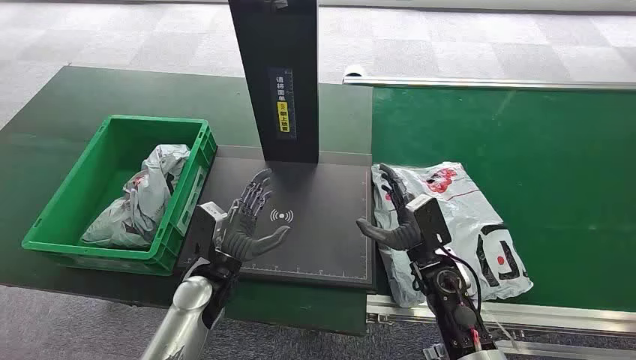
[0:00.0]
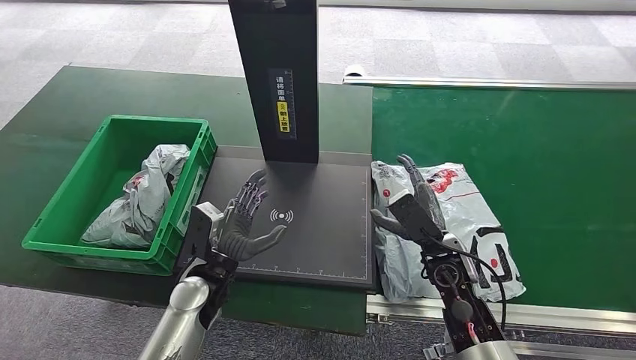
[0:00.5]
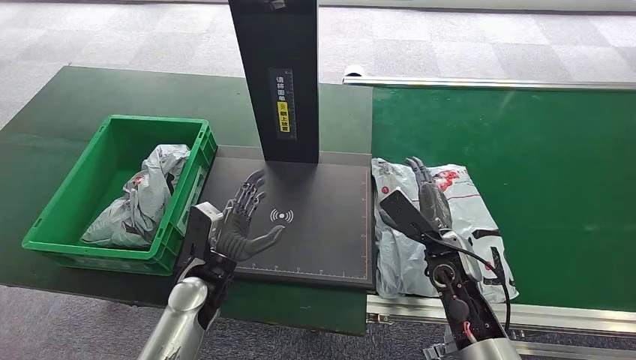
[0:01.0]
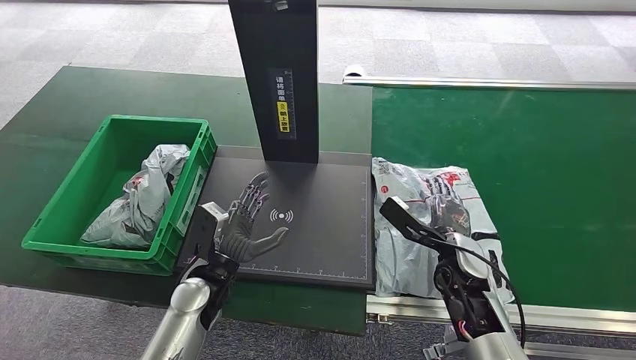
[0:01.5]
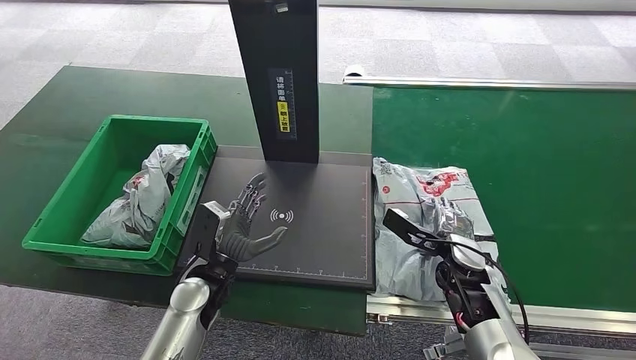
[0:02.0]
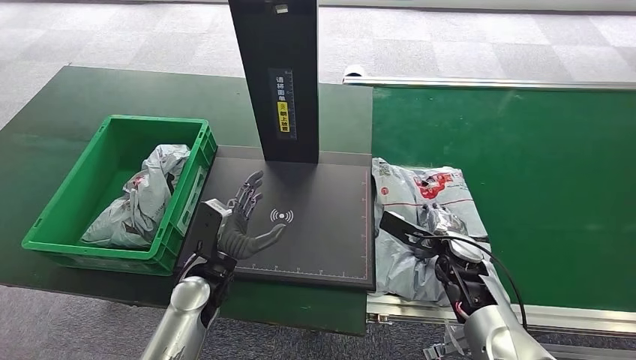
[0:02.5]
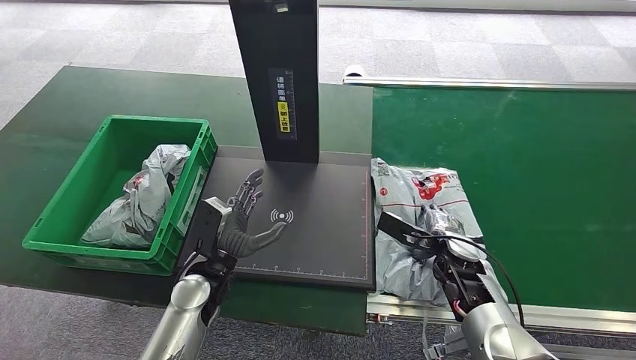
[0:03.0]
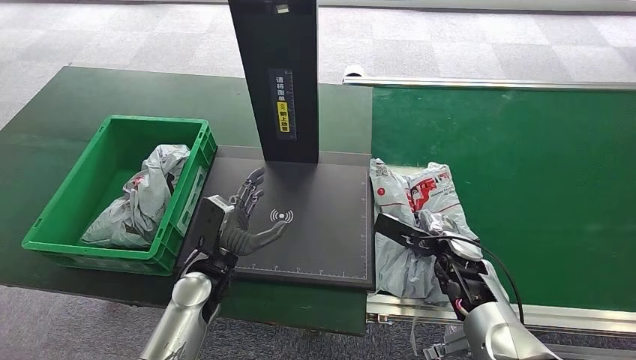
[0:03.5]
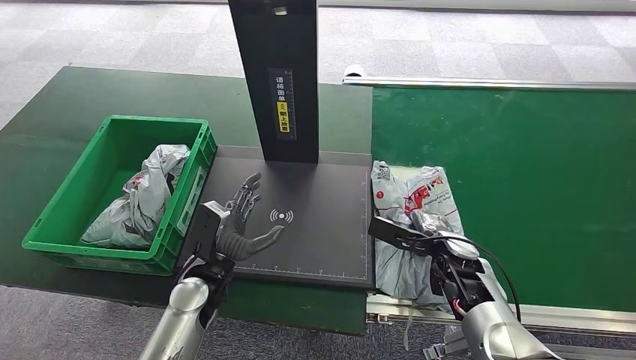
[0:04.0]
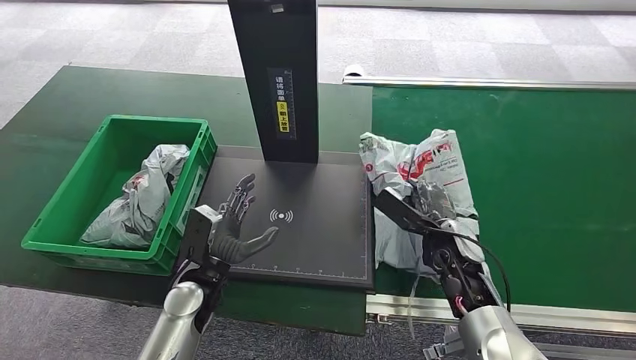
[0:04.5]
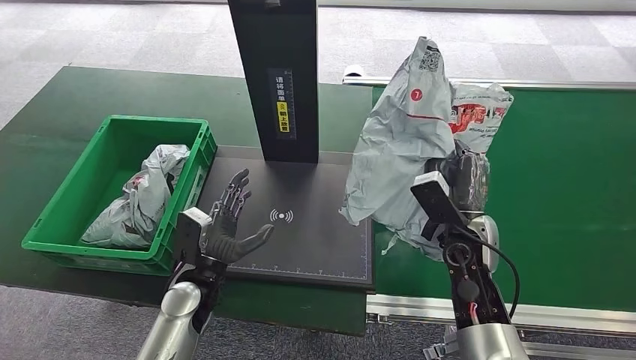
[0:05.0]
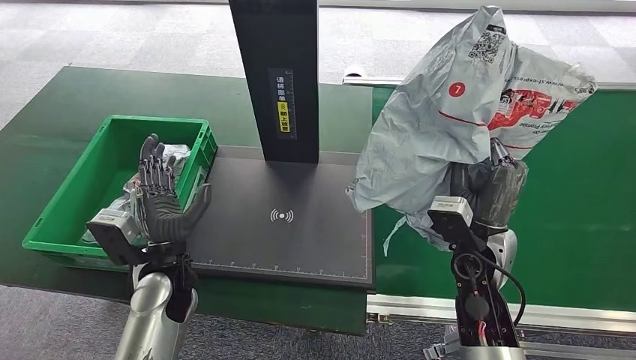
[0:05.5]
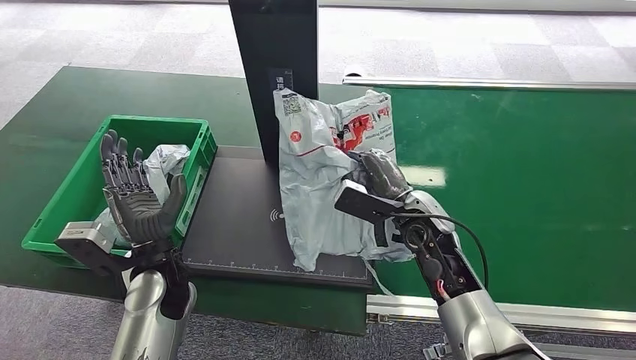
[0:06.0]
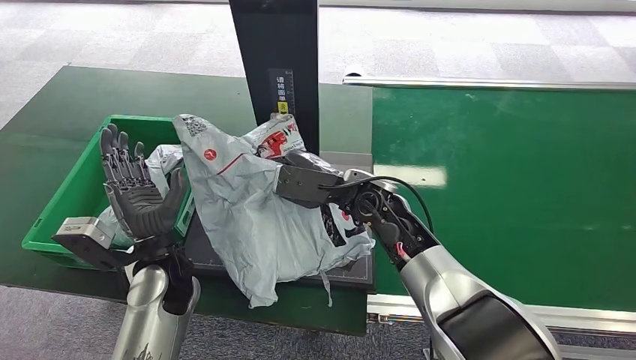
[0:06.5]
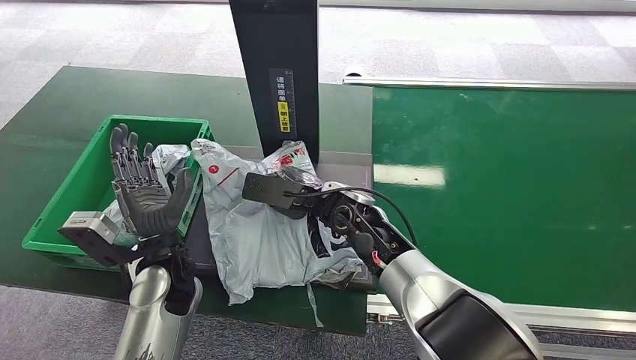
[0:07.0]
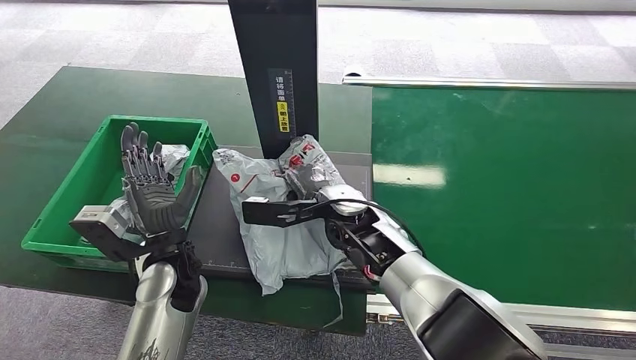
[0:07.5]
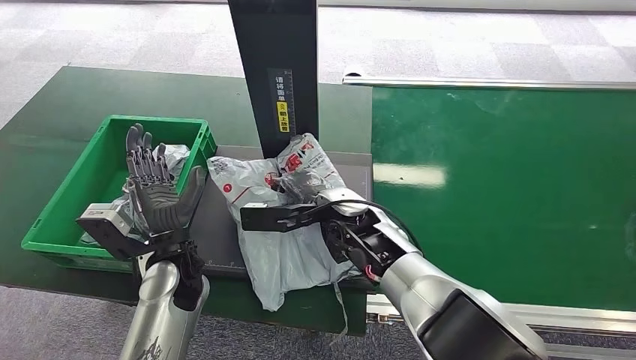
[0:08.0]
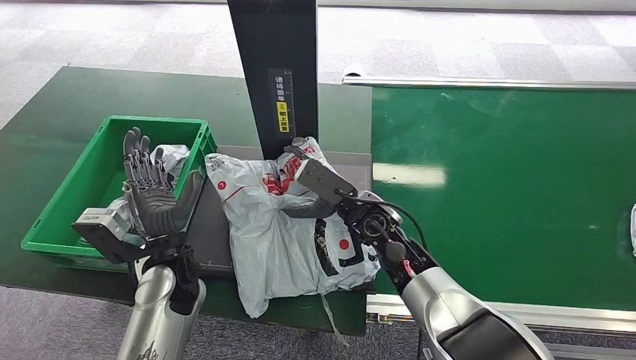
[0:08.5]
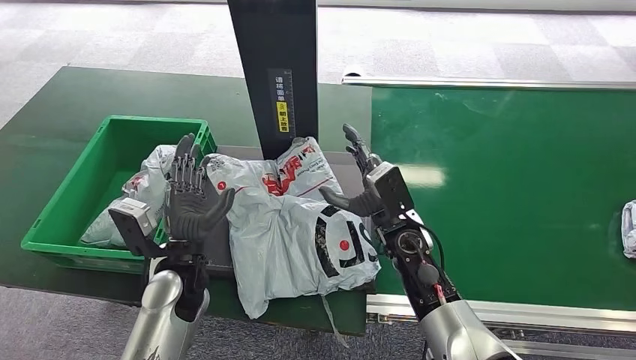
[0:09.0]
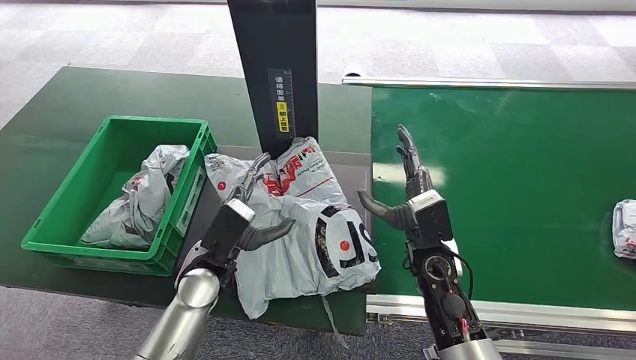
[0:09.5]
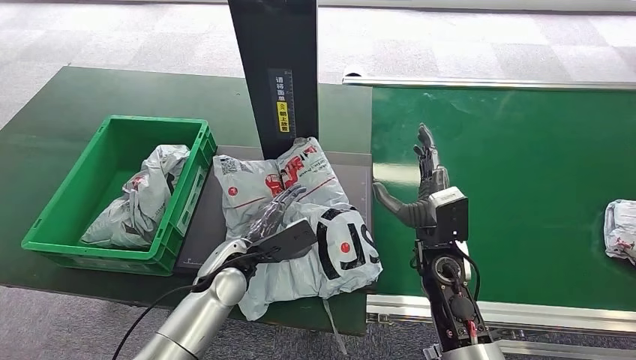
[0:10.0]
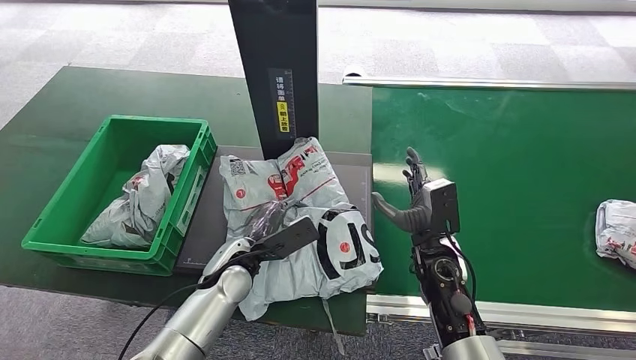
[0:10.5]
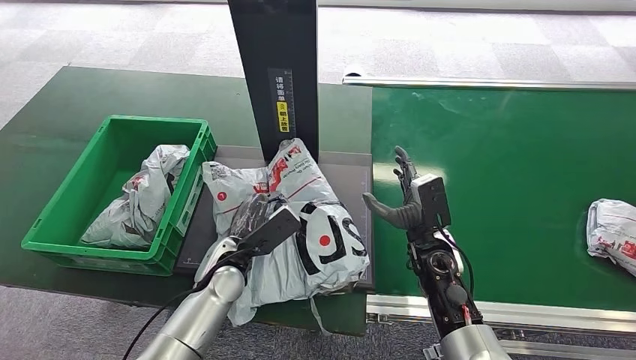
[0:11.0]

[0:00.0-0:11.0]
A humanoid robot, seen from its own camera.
Step, 0.0 to 5.5 s: Pick up the package from the conveyor belt.
Step, 6.0 to 8.0 s: Place the package onto the inbound machine.
2.0 to 3.5 s: There are only small adjustments of the hands.
7.5 to 9.0 s: The right hand goes approximately 10 cm to the right.
9.0 to 11.0 s: The right hand moves to the right, about 5 cm. Meanwhile the left hand shifts by approximately 5 cm.

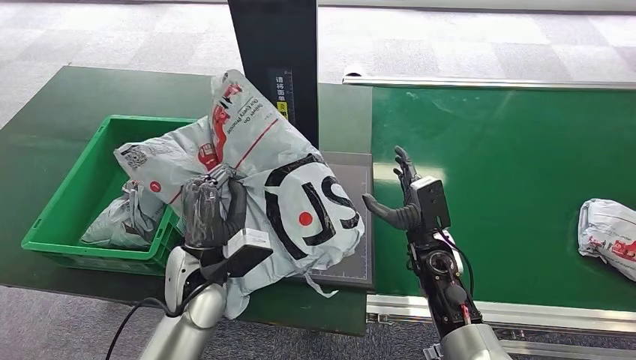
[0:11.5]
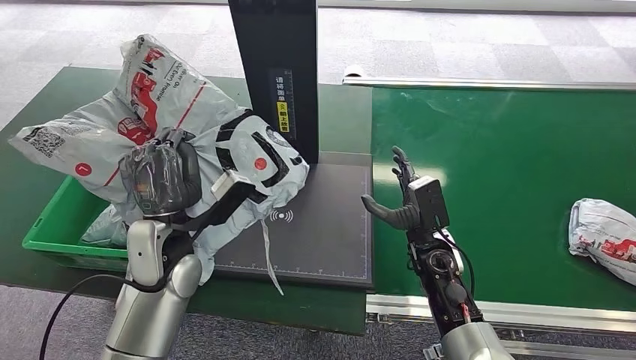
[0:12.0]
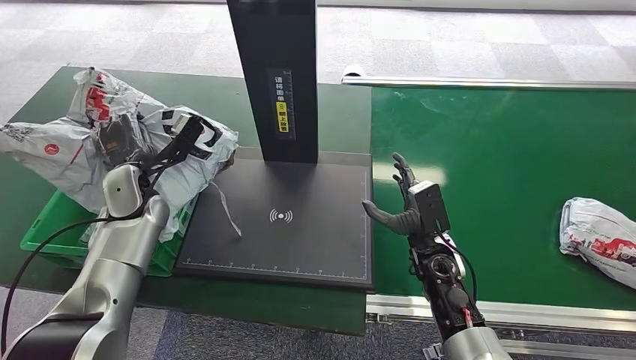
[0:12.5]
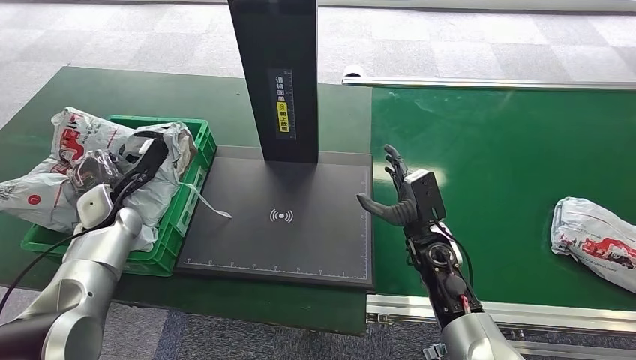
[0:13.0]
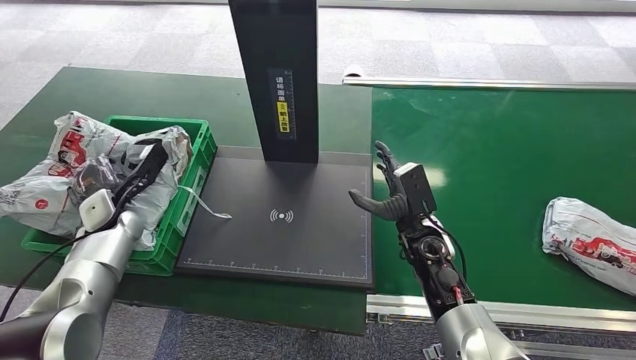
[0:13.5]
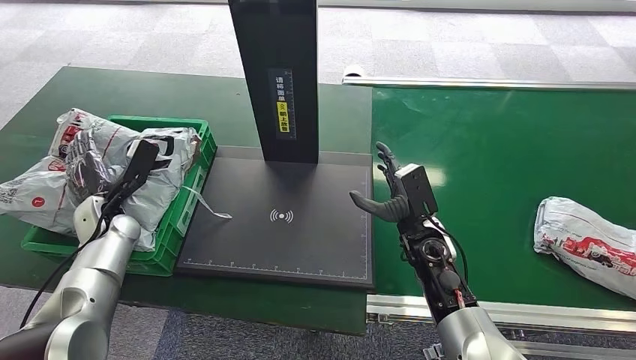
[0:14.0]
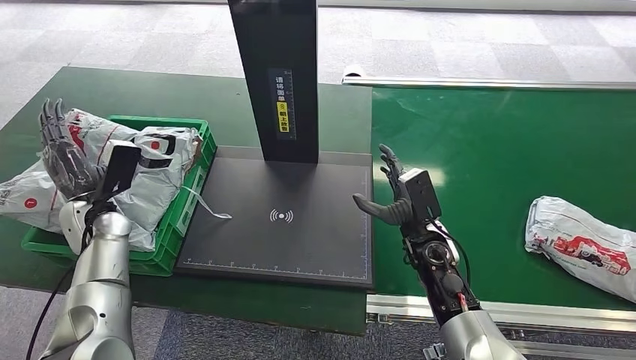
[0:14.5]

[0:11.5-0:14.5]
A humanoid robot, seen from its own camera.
Step, 12.0 to 14.5 s: Place the package into the parcel locker.

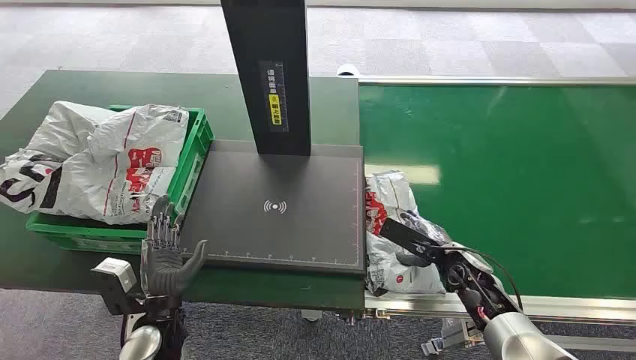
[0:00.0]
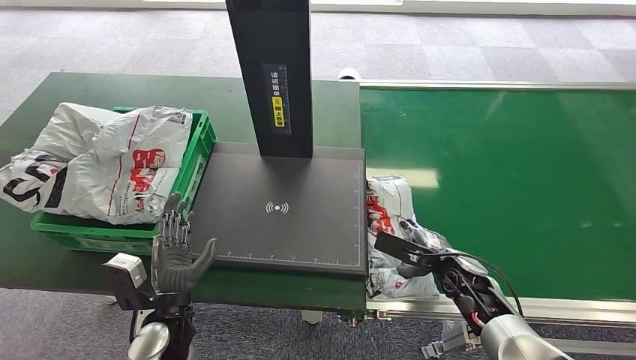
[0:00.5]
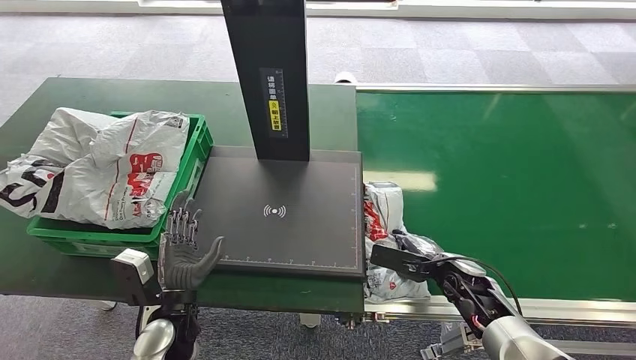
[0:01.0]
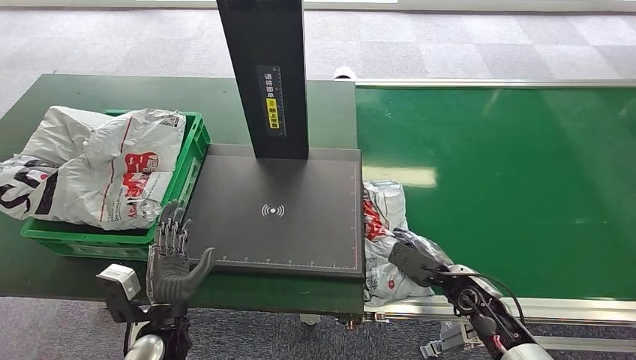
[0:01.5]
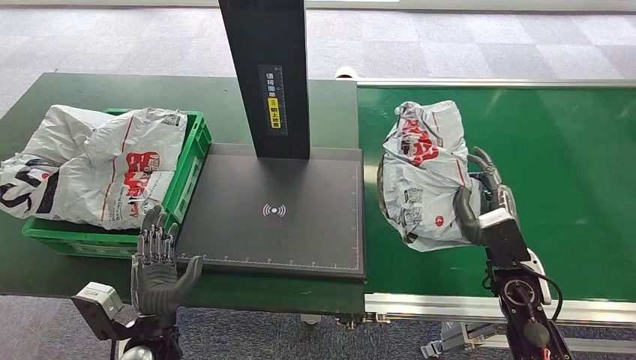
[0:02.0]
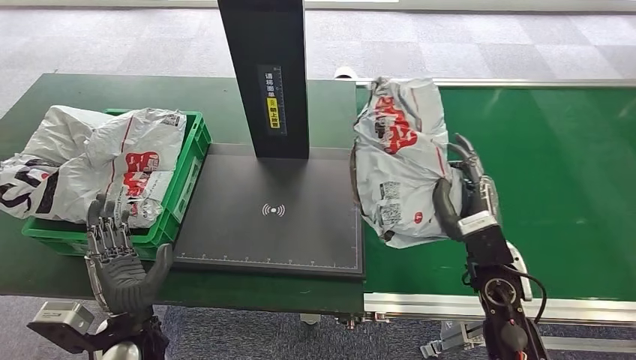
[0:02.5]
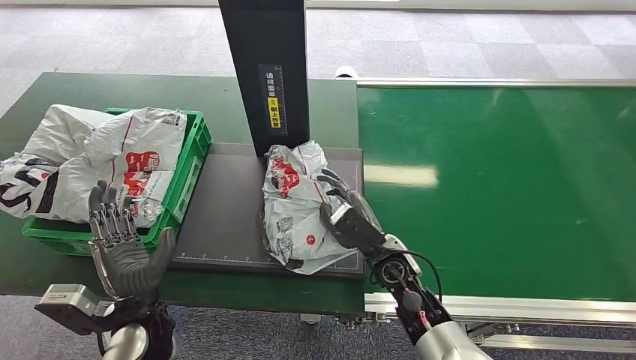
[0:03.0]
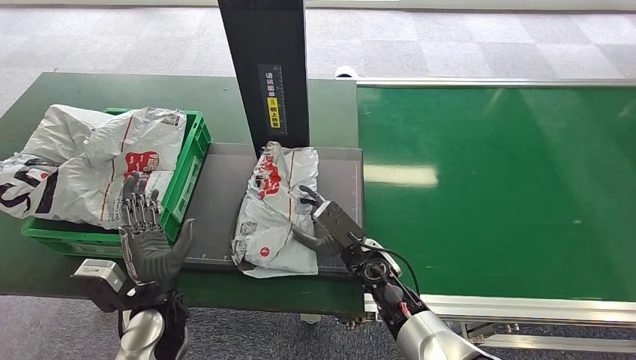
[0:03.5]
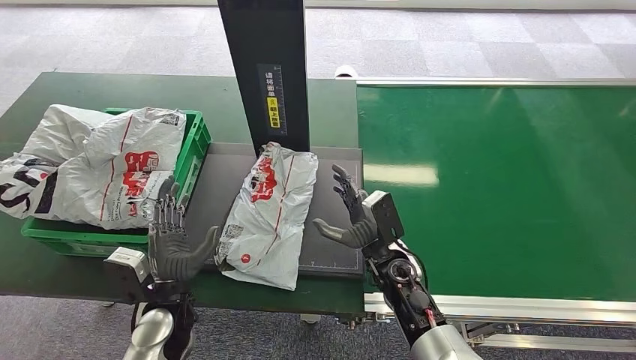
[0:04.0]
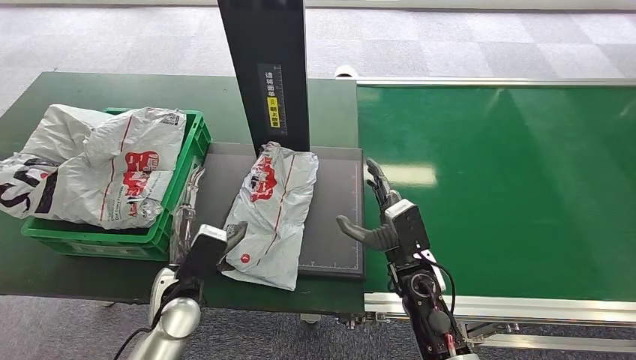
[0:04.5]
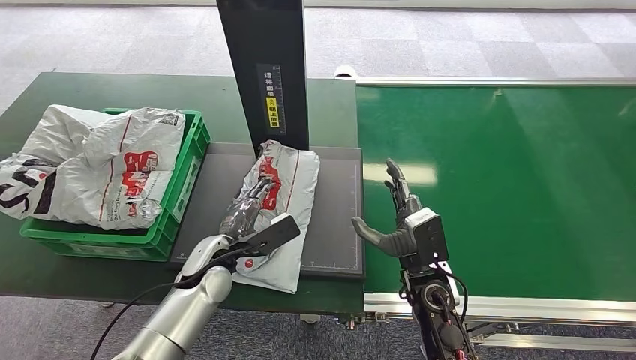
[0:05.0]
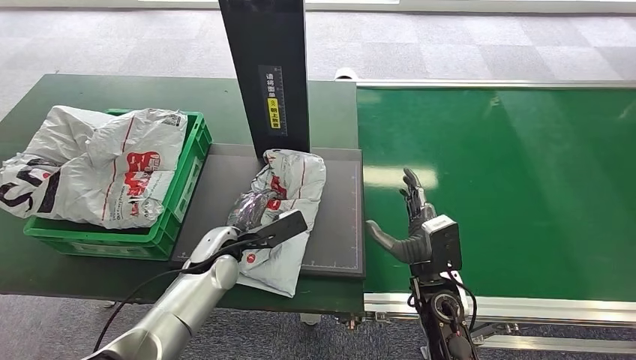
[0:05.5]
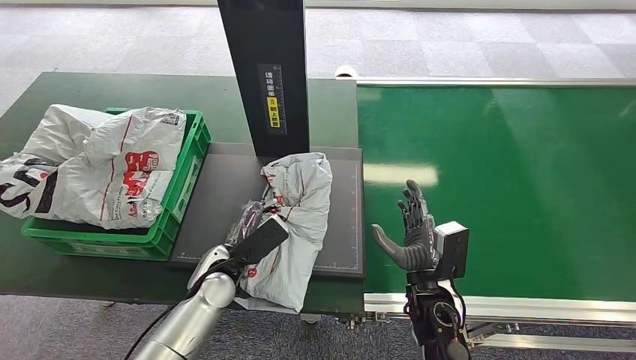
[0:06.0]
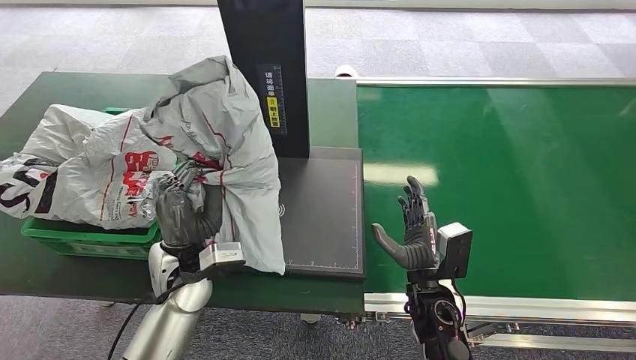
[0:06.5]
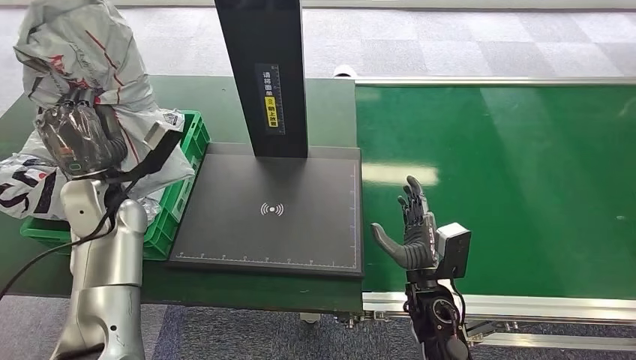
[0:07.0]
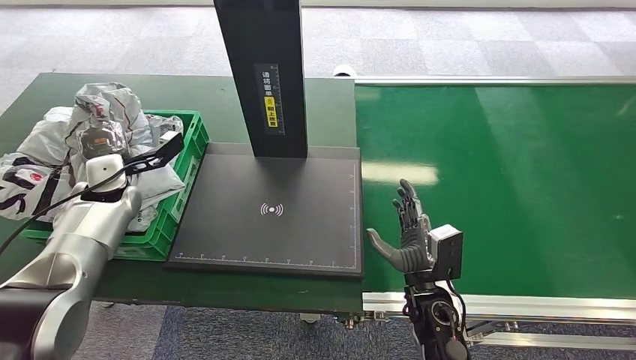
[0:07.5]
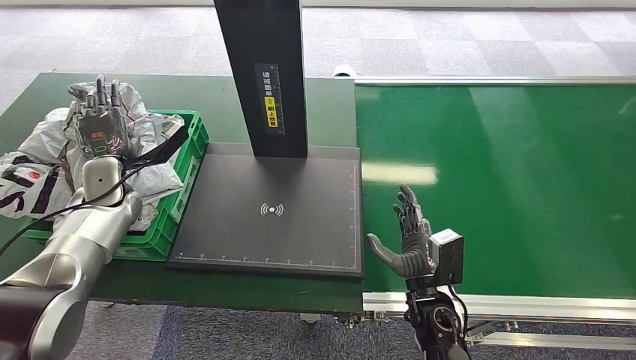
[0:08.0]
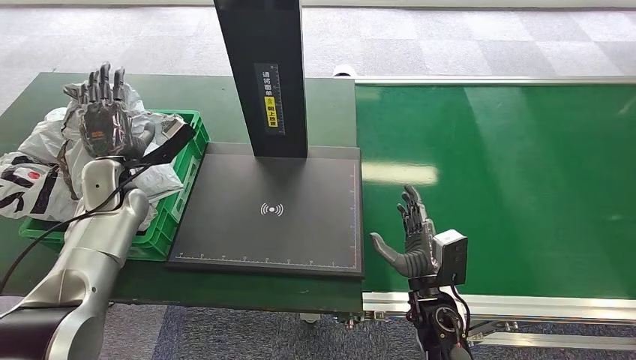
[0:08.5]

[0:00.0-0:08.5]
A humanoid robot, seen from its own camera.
Step, 0.0 to 2.0 s: Pick up the package from the conveyor belt.
Step, 2.5 to 3.5 s: Place the package onto the inbound machine.
Step, 4.0 to 6.5 s: Pick up the package from the inbound machine.
Step, 7.0 to 8.5 s: Place the package into the parcel locker.
4.0 to 6.5 s: The left hand moves upward and forward, about 10 cm. The right hand moves backward, approximately 5 cm.
